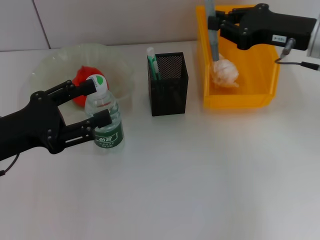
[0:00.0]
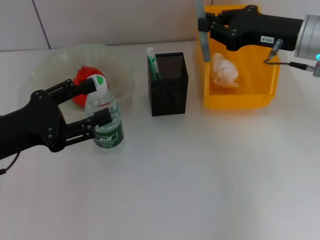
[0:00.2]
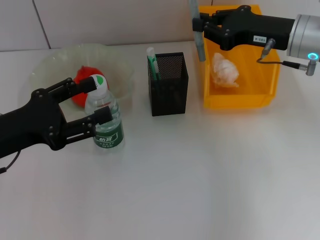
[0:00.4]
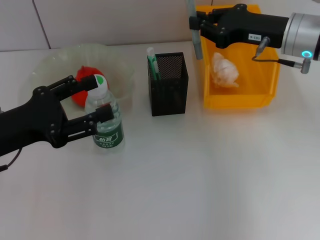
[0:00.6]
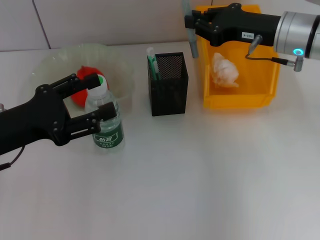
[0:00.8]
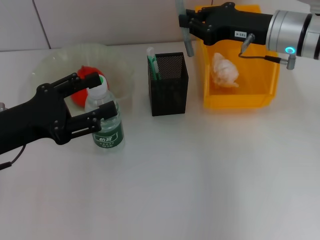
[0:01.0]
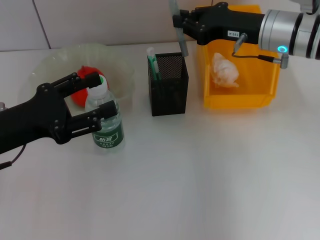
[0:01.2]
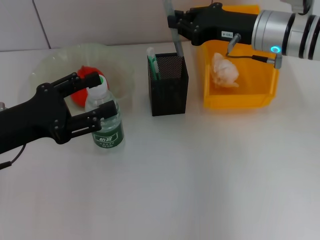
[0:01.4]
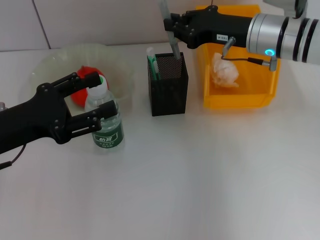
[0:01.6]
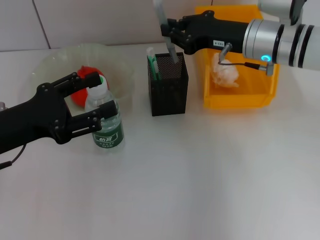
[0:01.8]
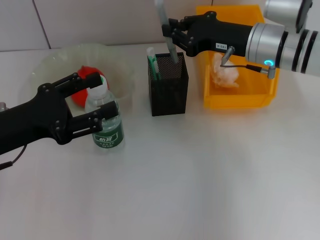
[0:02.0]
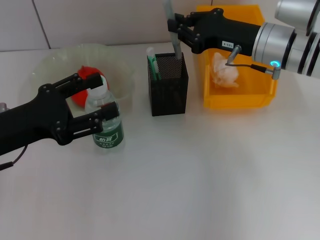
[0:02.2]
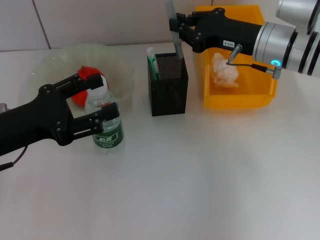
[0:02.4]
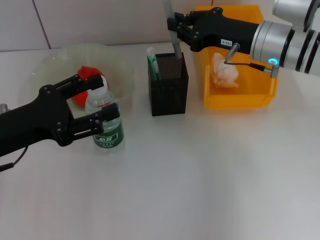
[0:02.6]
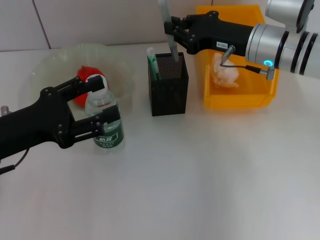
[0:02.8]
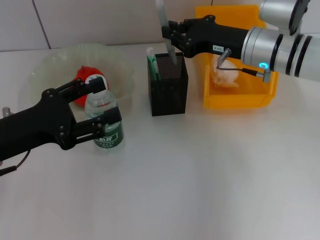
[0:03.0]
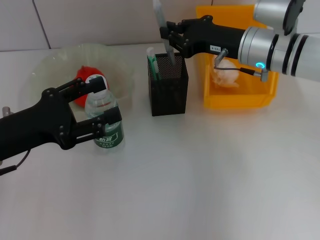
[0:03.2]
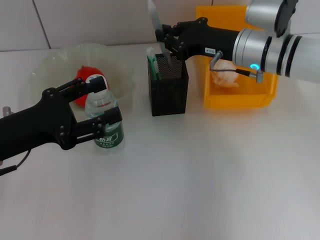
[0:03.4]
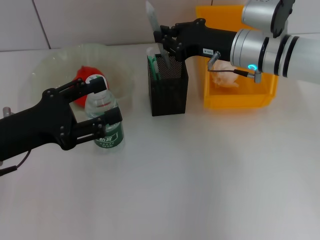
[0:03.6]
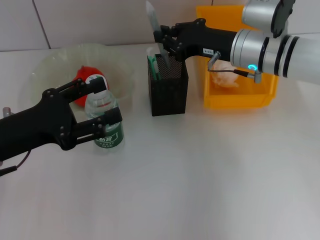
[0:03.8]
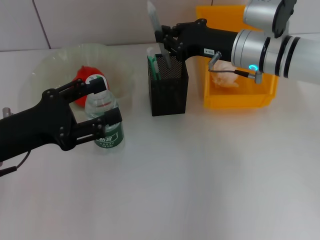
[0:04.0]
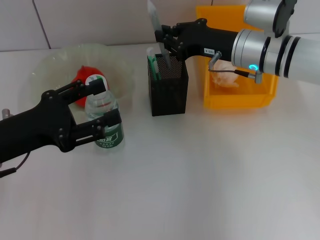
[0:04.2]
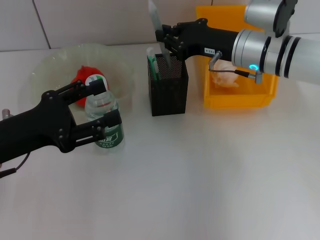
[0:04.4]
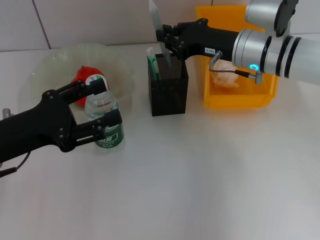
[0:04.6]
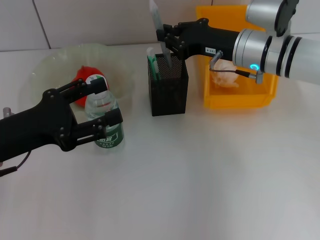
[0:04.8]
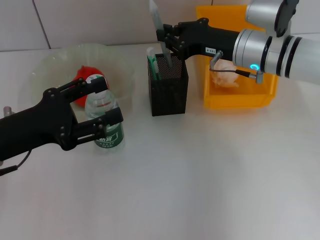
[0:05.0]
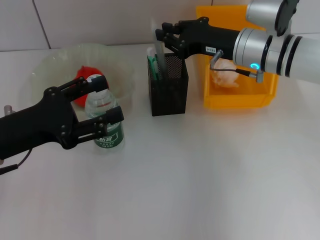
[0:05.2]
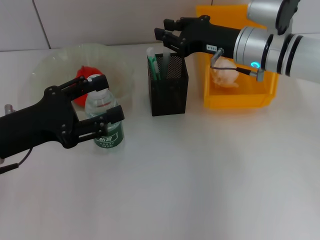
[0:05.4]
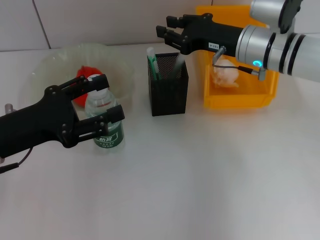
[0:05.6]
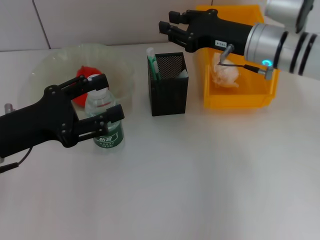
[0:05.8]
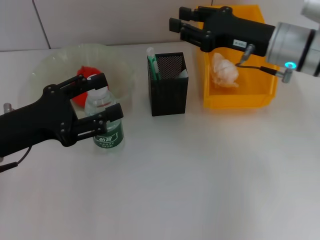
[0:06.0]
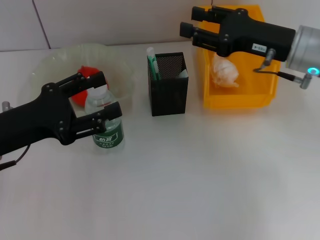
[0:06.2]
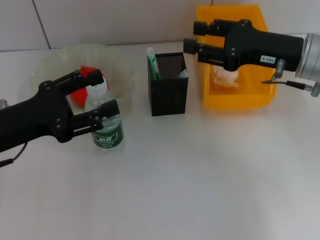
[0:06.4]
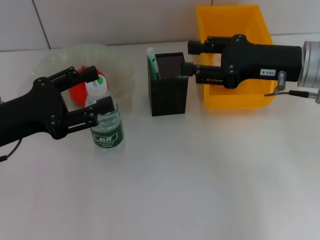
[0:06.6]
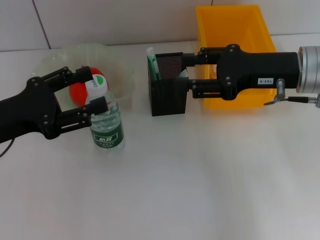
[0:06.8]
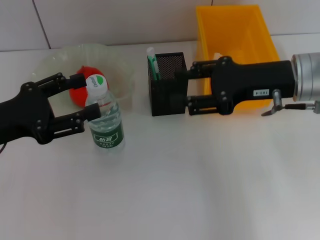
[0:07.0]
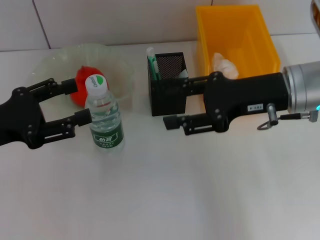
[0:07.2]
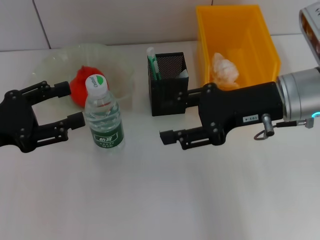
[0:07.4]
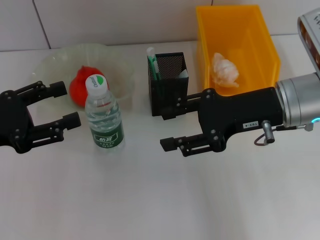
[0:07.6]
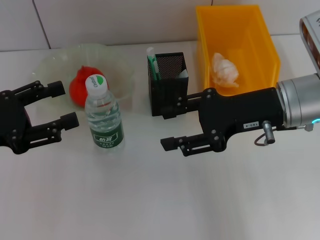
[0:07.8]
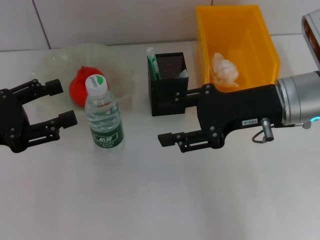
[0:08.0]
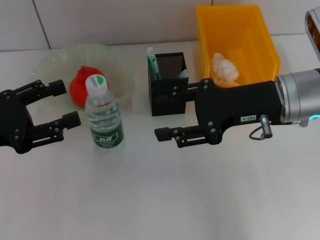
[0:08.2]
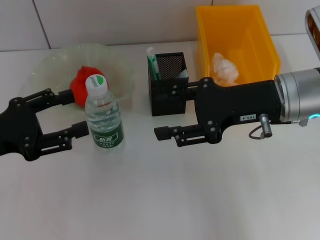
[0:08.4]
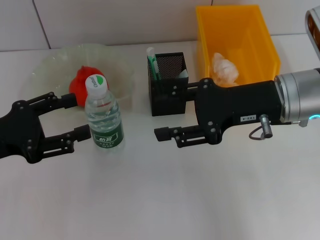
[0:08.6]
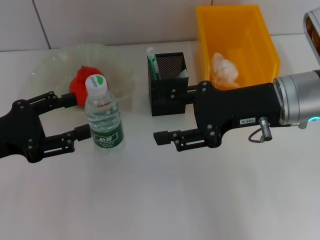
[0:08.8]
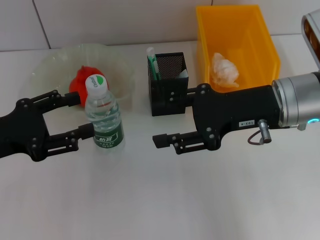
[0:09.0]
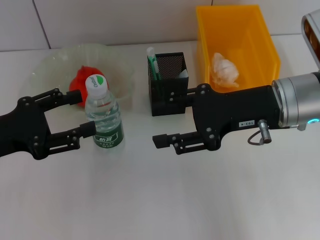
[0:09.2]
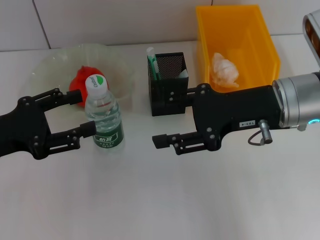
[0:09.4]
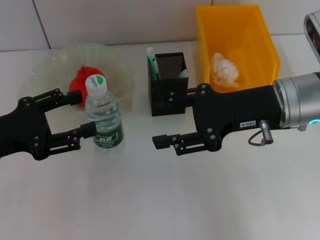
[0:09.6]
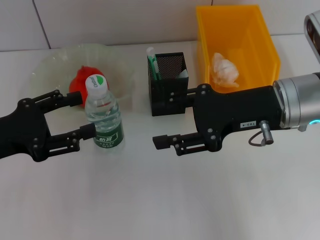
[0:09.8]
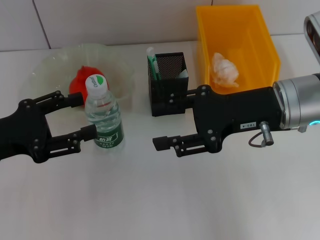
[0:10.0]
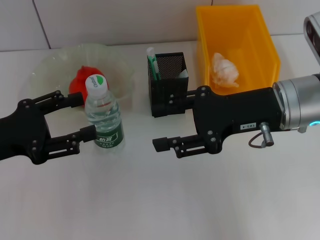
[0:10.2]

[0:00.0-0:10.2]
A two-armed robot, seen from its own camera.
Step, 0:00.0 to 0:05.6: Place the gray glue into the pen holder with the right hand.
0:00.0 to 0:01.4: The right gripper travels to the left by roughly 5 cm.
0:01.4 to 0:05.8: The grippers move only a little.
0:05.8 to 0:07.2: The right gripper moves backward, about 10 cm, and opens up.
0:07.2 to 0:08.8: The grippers stay close to where they were, moving slightly.
0:08.8 to 0:10.2: Both grippers stay about where they are.

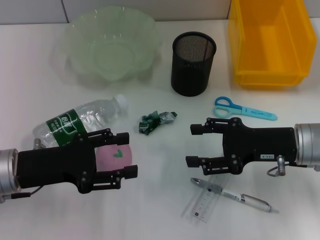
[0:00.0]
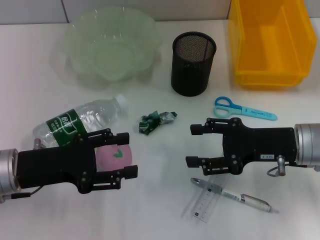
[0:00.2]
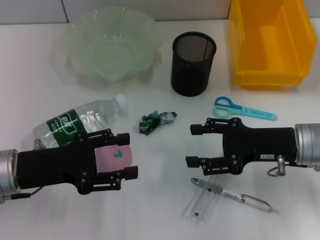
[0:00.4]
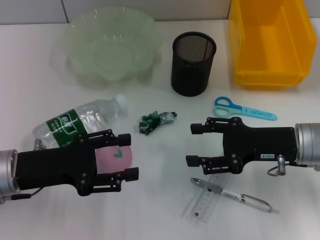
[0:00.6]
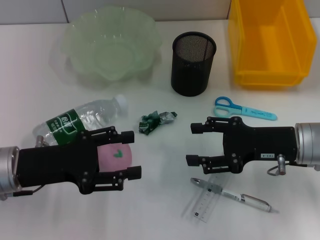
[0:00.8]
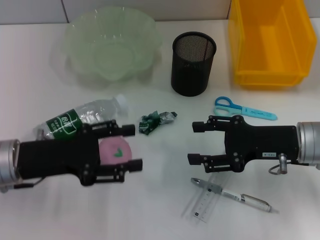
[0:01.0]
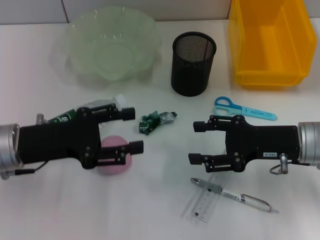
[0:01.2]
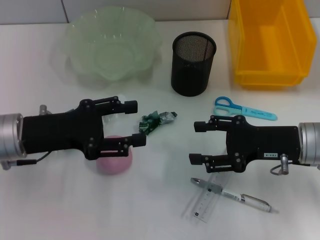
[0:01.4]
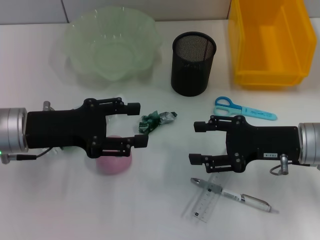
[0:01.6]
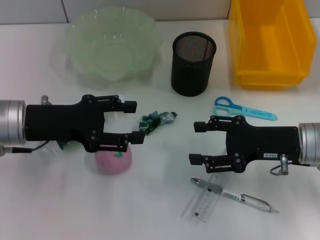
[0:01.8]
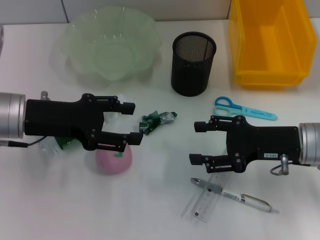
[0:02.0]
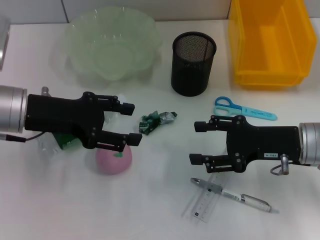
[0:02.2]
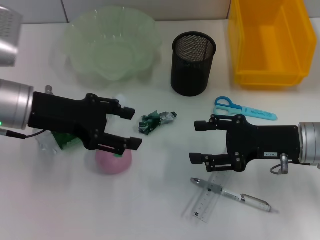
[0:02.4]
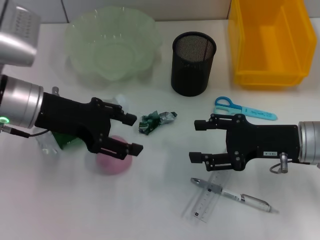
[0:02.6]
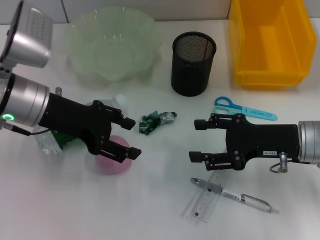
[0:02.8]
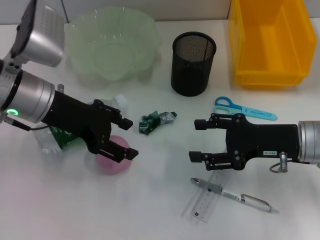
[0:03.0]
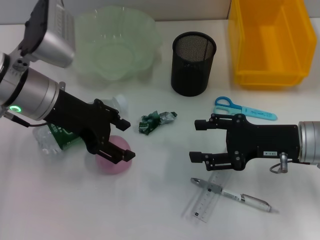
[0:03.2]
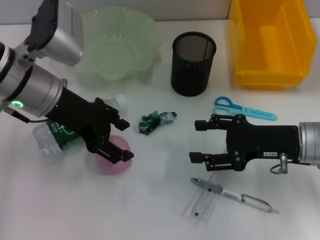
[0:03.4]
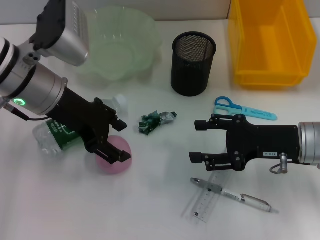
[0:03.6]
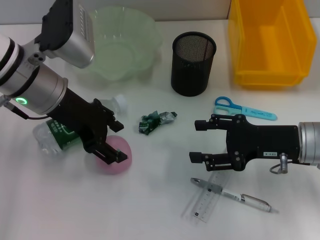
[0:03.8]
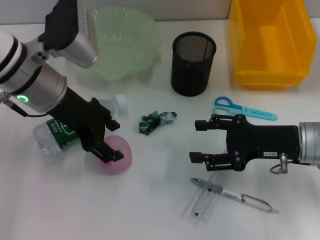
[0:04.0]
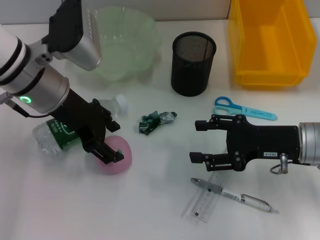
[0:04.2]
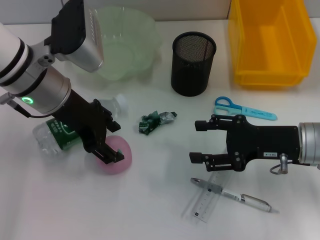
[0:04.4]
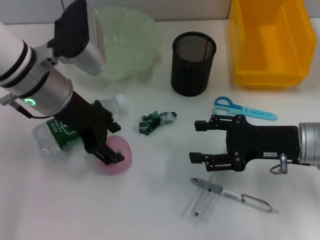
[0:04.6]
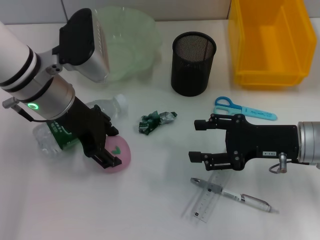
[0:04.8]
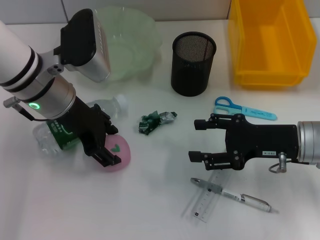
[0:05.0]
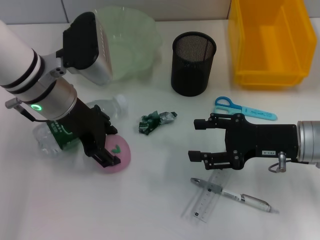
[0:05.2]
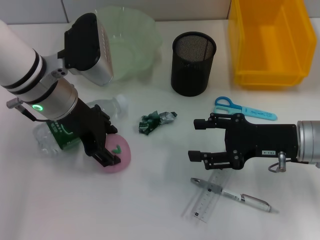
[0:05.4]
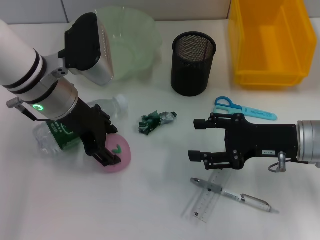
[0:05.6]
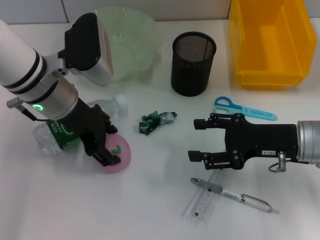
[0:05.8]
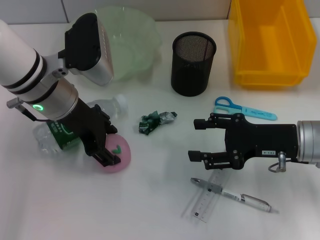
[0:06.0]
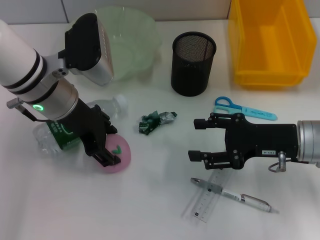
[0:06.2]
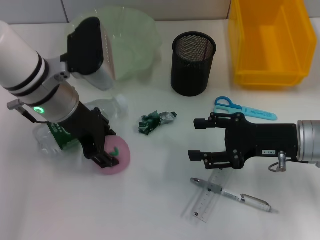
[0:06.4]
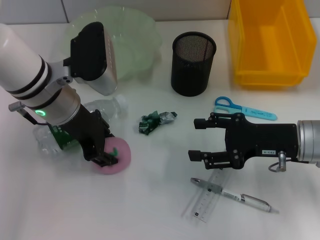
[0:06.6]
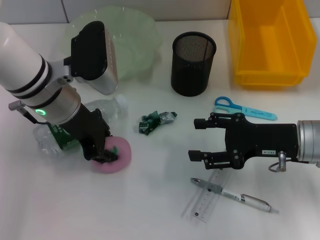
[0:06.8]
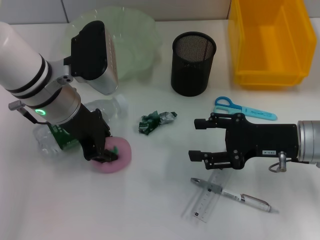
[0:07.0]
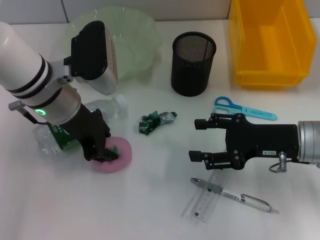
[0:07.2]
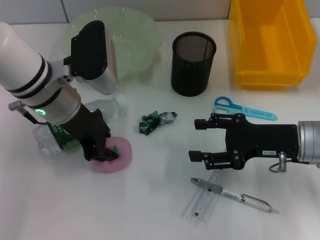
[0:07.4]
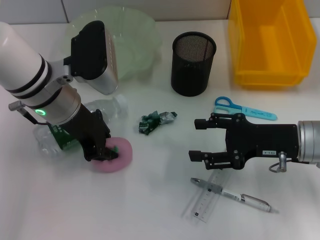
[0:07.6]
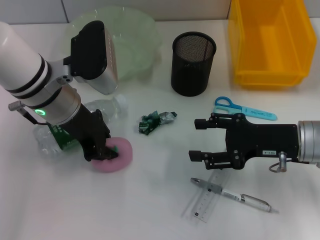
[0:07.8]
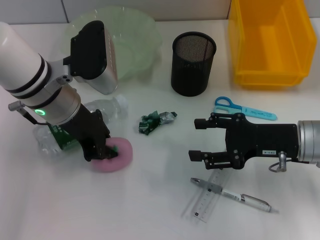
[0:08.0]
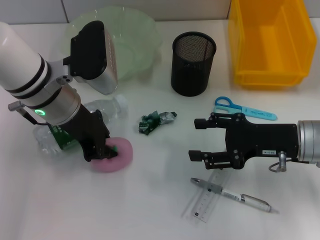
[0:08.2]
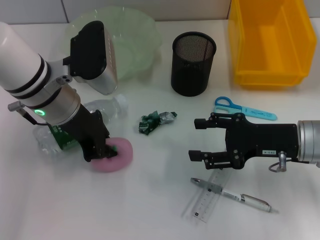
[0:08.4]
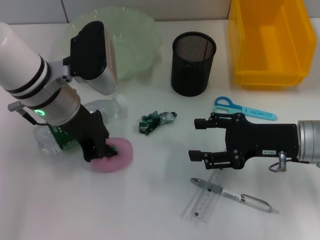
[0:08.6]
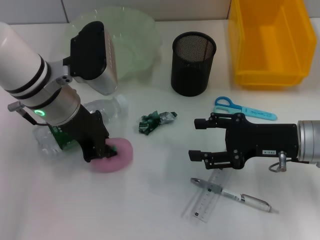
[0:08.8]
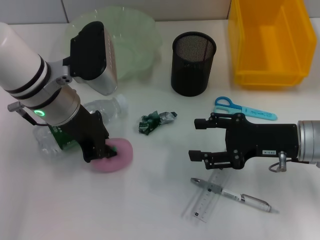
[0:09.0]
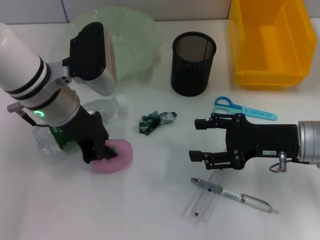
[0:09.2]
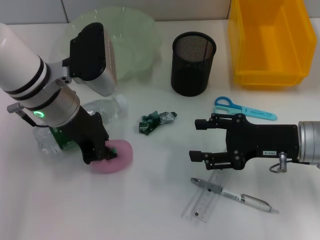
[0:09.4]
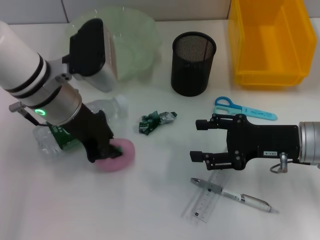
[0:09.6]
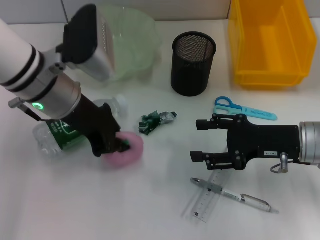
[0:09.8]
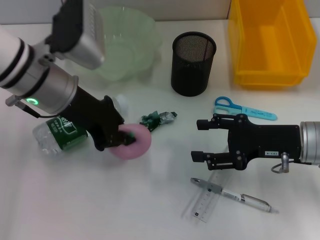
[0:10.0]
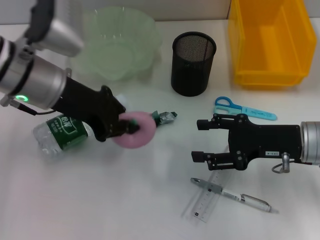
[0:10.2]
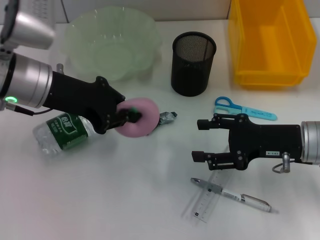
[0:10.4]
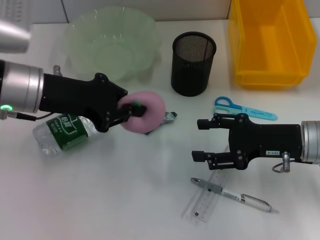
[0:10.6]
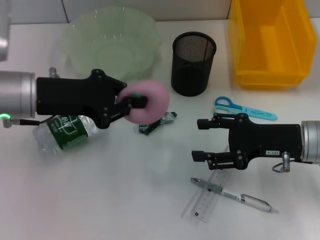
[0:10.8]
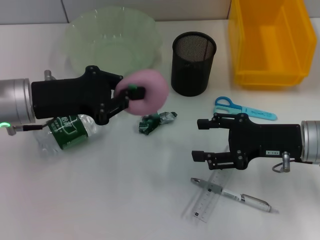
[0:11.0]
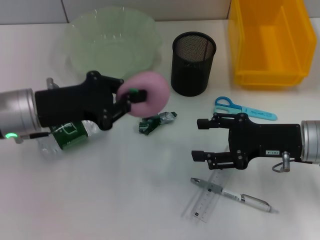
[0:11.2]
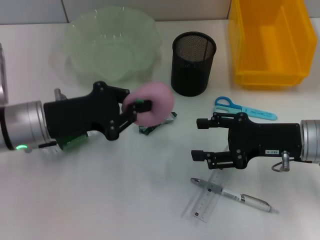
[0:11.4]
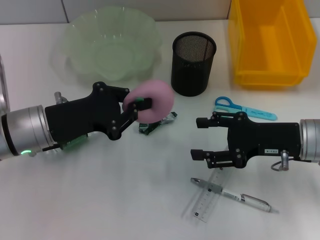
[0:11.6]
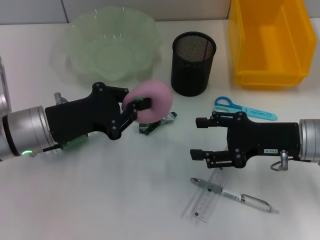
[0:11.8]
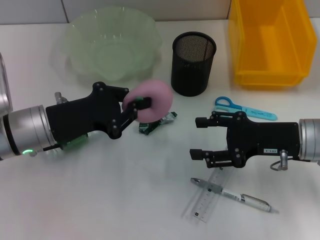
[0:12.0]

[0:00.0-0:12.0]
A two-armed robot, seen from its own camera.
Step, 0:00.0 to 0:09.6: Grab the peach with the left hand.
0:00.0 to 0:01.6: The left gripper ends up about 5 cm from where it was.
0:01.6 to 0:03.0: The left gripper ends up about 5 cm from where it was.
0:04.4 to 0:06.0: There are only small adjustments of the grippers.
0:06.0 to 0:07.6: The left gripper closes up.
0:07.6 to 0:09.0: Both grippers stay put.
0:09.0 to 0:10.4: The left gripper shifts by about 5 cm.
0:10.4 to 0:12.0: The left gripper moves downward, about 10 cm.
